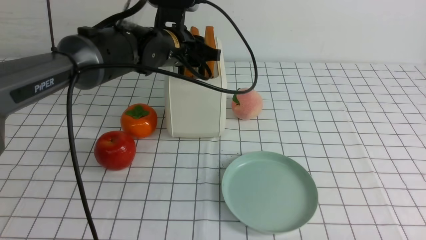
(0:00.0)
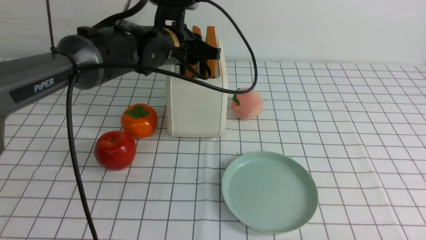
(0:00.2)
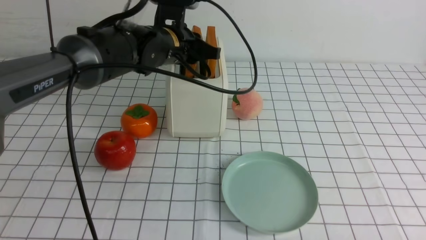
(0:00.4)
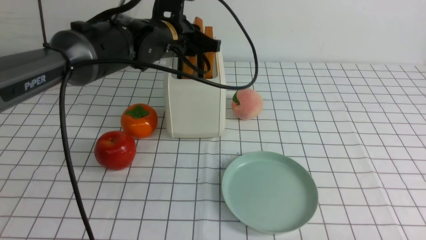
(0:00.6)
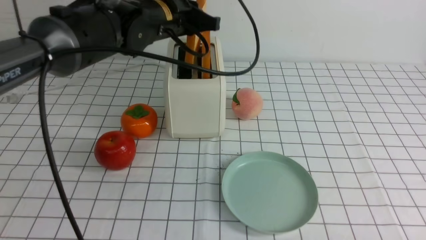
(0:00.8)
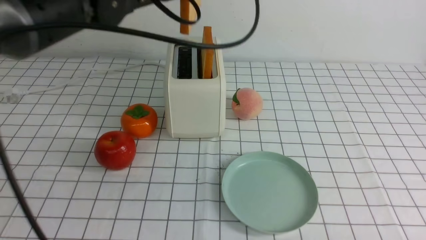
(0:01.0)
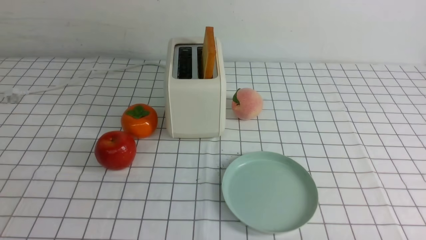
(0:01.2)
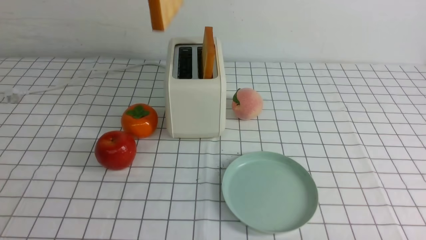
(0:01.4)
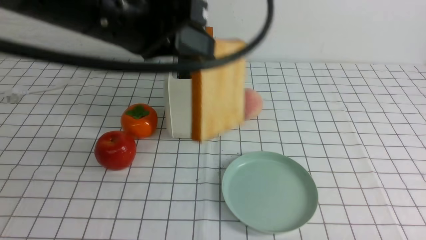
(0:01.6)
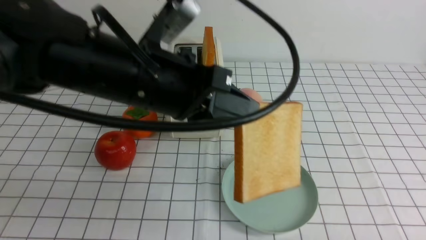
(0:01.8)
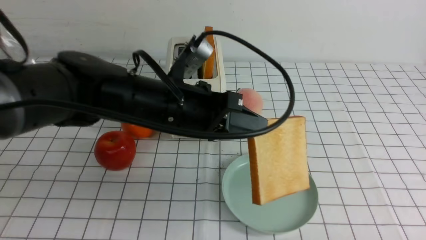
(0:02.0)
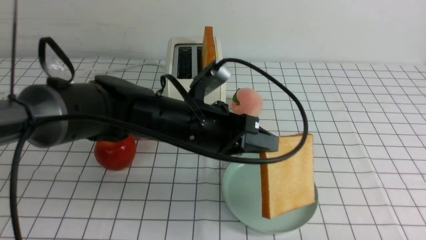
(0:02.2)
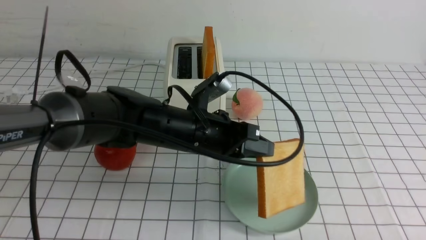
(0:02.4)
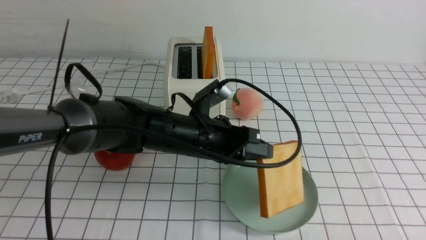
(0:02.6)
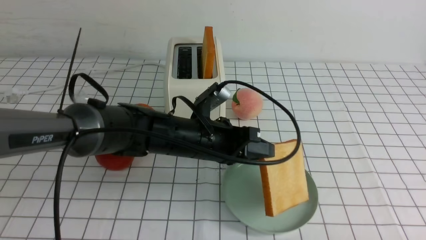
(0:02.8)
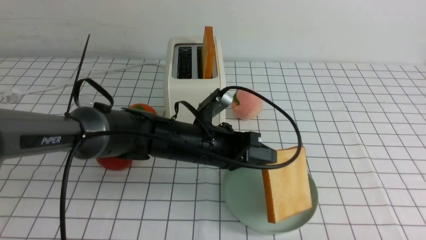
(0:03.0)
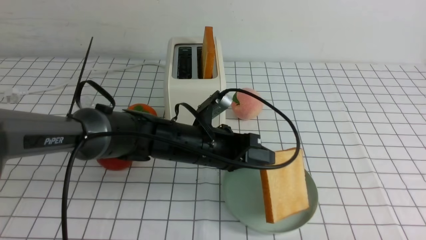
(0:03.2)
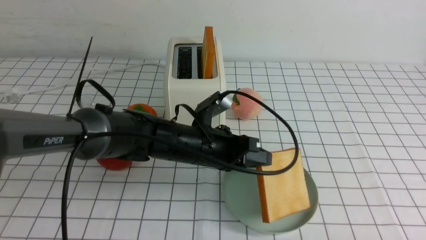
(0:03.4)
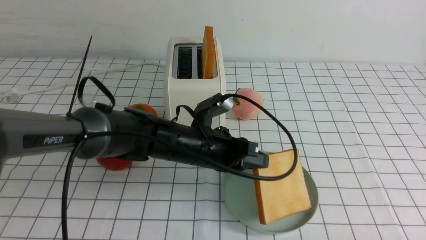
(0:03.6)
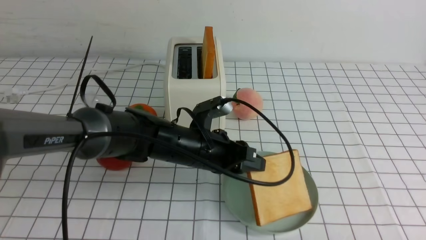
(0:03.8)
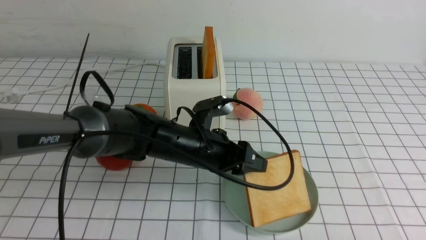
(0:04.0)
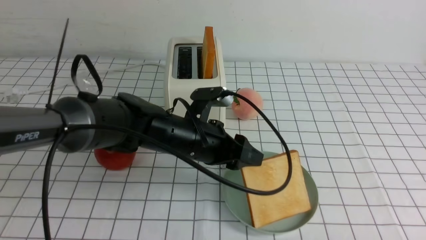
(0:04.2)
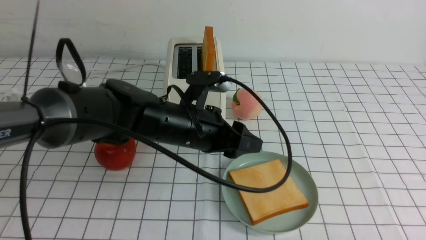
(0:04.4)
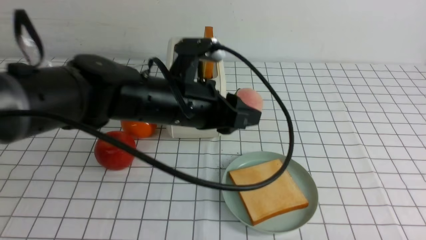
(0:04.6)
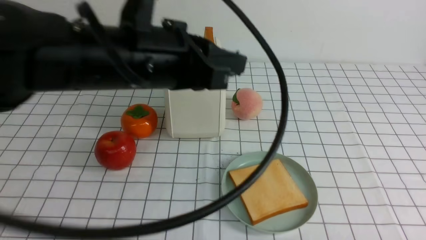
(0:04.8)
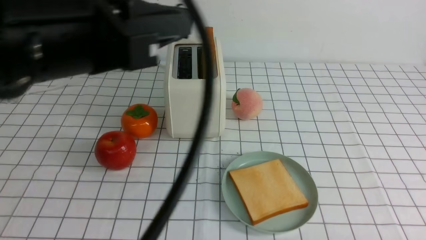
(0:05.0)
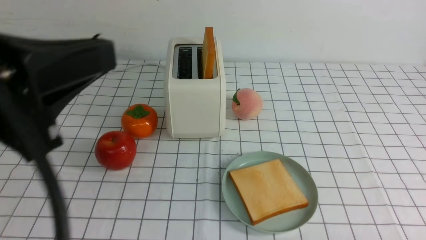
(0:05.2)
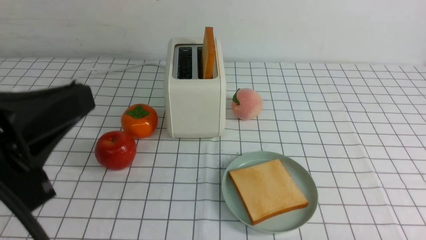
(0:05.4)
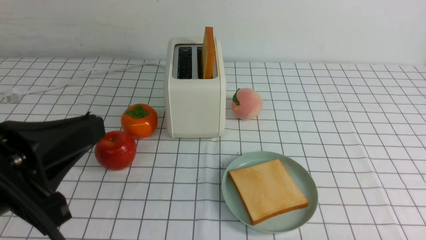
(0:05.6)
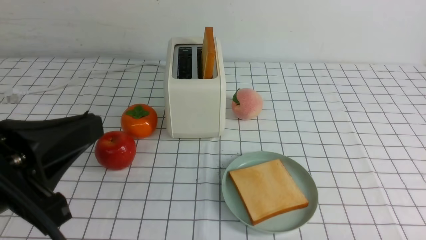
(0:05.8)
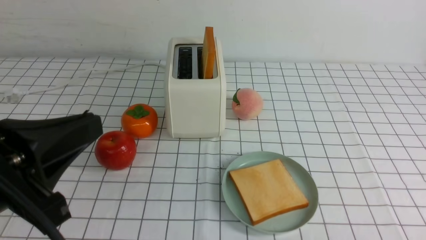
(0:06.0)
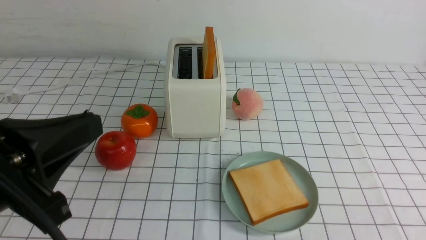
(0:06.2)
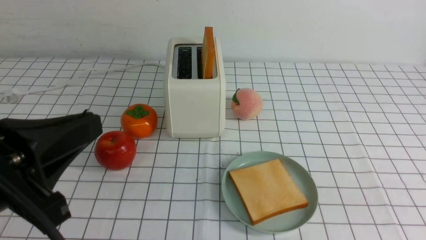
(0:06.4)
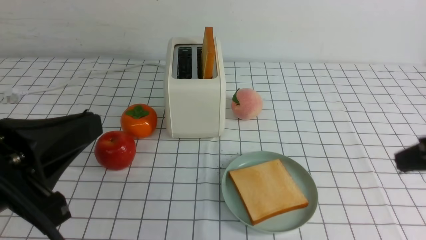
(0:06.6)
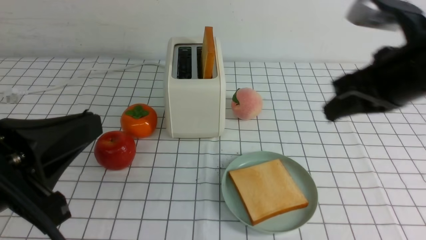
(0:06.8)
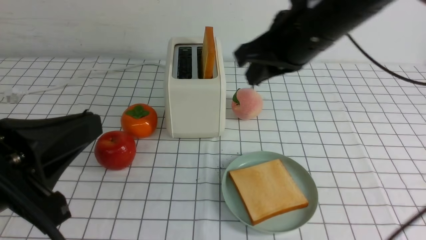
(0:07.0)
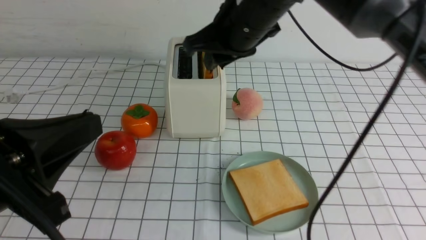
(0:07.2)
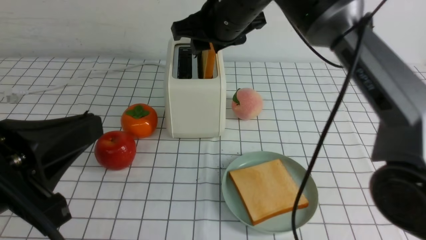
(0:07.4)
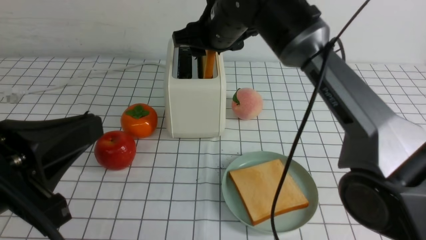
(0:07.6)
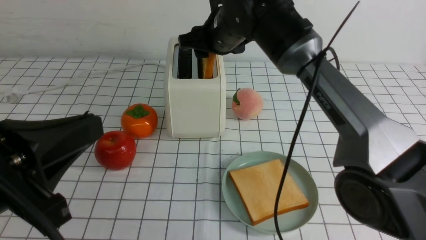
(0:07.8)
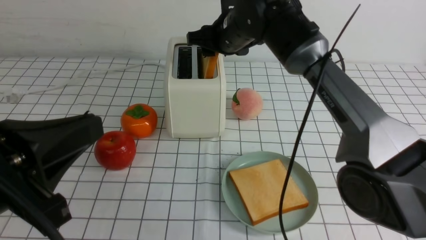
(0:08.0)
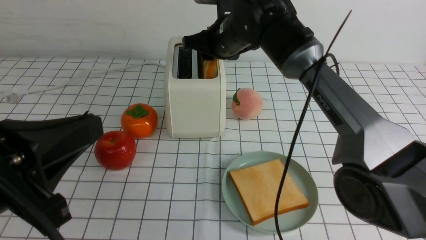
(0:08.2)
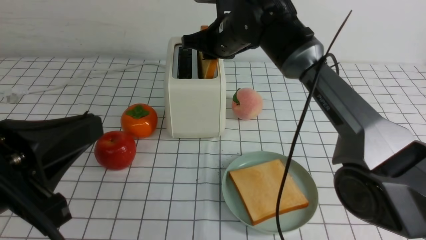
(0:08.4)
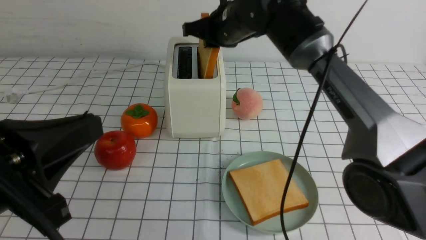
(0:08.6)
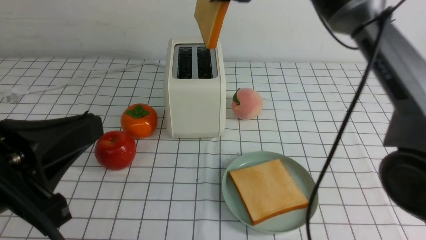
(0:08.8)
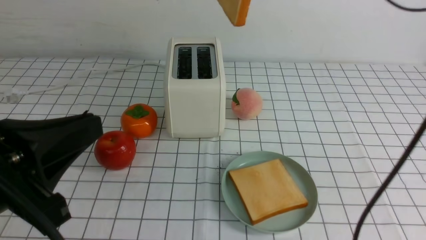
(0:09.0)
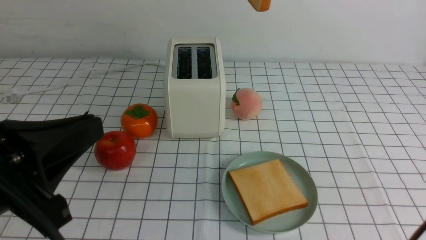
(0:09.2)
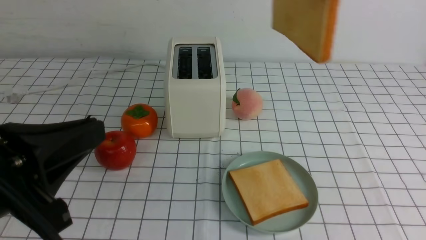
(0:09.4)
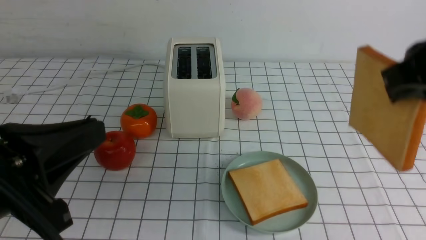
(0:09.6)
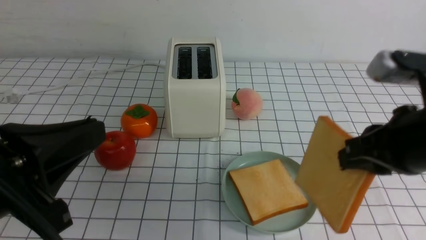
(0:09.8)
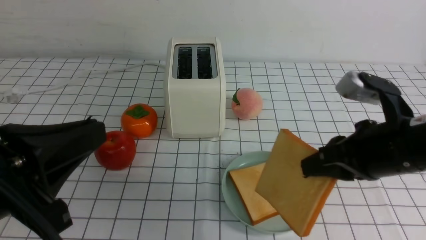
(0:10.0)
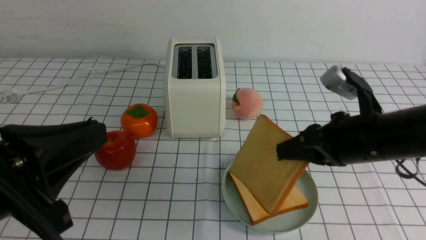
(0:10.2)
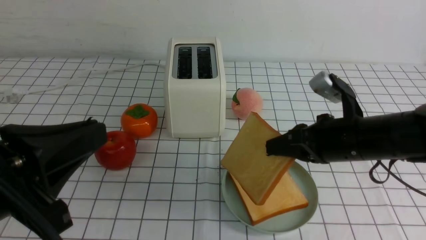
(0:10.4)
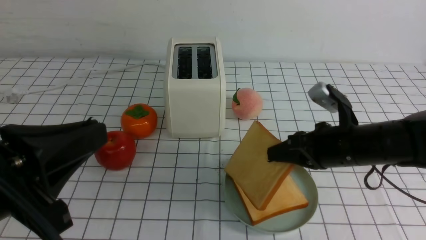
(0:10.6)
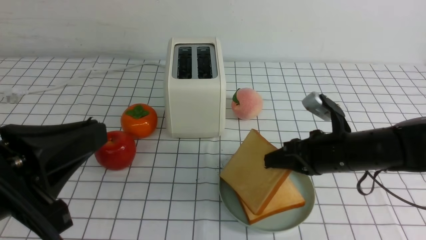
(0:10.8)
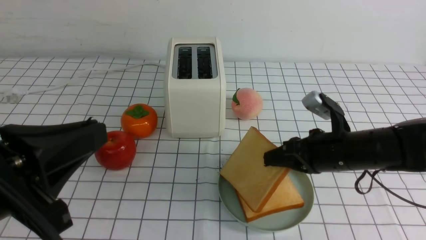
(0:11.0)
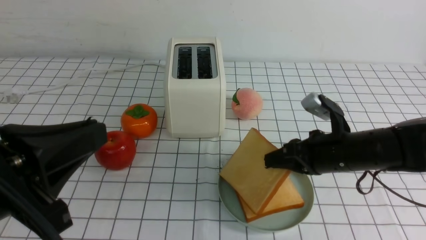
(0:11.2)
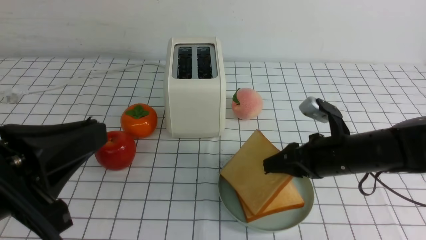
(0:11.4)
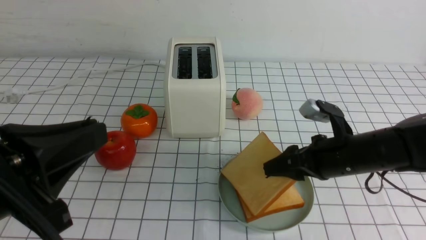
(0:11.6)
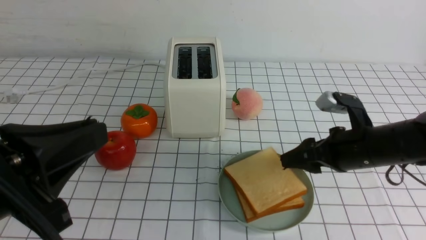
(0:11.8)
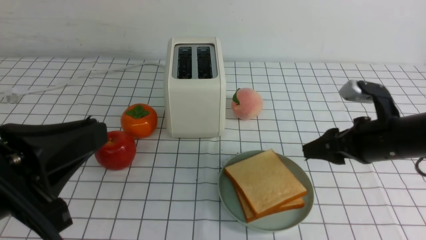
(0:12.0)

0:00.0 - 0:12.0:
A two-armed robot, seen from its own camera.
Task of the whole recording: take toasted bread from bread machine on white checkered table place on plate.
Step, 0:01.0 - 0:04.4: use the left arm to put a slice of bread into the empty plate.
Step, 0:04.6 - 0:08.6: use the right arm to take out a slice of bread.
Step, 0:08.8 - 0:12.0: use the right arm to put a slice of bread into the plate.
0:00.0 - 0:01.6: The left gripper moves backward and upward, some 20 cm, and closes its fingers.
0:01.6 - 0:03.0: The left gripper travels downward by about 25 cm.
0:03.0 - 0:04.4: The left gripper opens up.
0:04.4 - 0:06.0: The left gripper travels backward, to the left and upward by roughly 30 cm, and closes its fingers.
0:06.0 - 0:07.6: The right gripper shifts approximately 50 cm forward, to the left and upward, and closes and opens again.
0:07.6 - 0:09.0: The right gripper travels upward and to the right by about 10 cm, and closes up.
0:09.0 - 0:10.4: The right gripper shifts about 25 cm downward, to the right and backward.
0:10.4 - 0:12.0: The right gripper ends up some 5 cm from where it was, and opens.

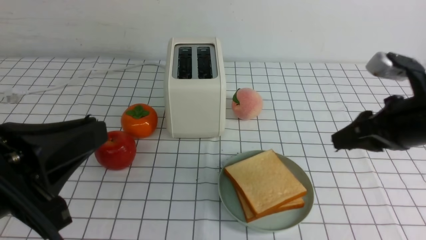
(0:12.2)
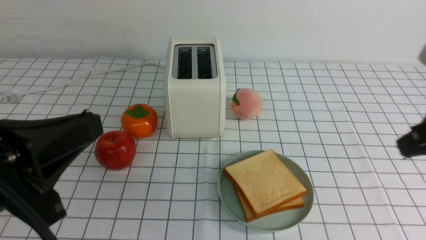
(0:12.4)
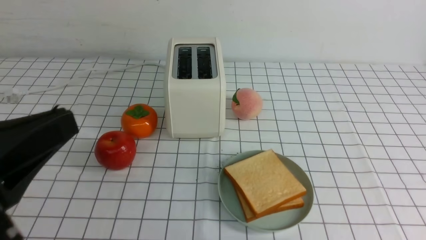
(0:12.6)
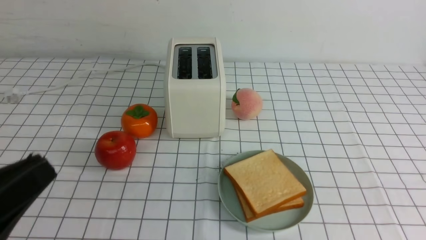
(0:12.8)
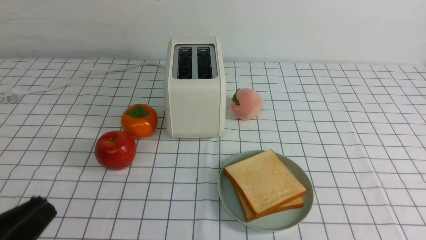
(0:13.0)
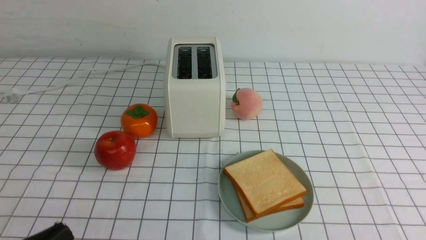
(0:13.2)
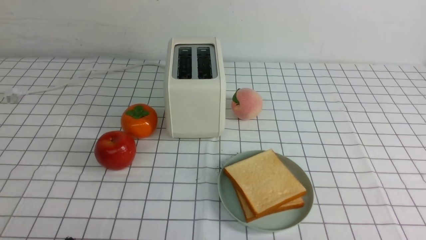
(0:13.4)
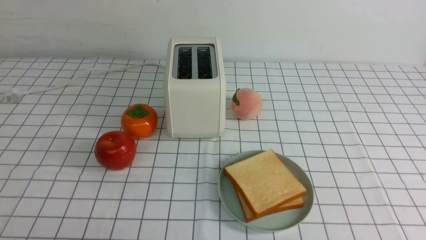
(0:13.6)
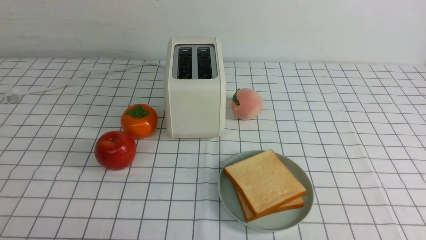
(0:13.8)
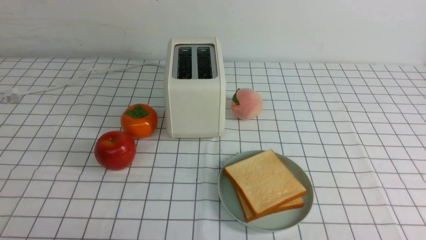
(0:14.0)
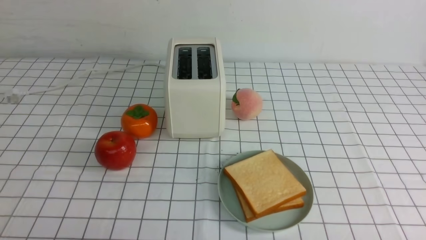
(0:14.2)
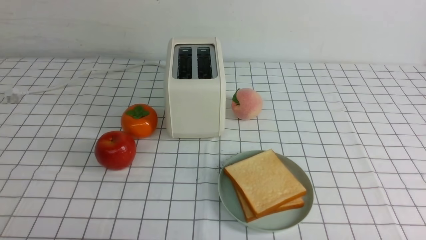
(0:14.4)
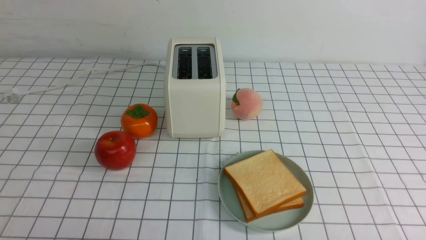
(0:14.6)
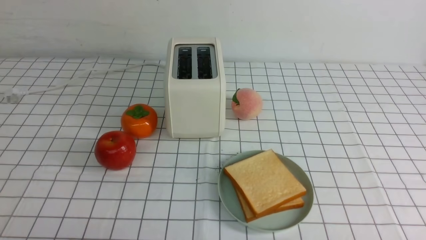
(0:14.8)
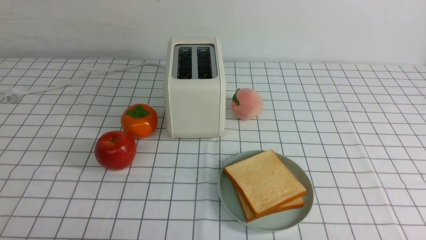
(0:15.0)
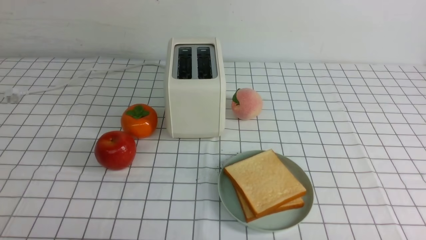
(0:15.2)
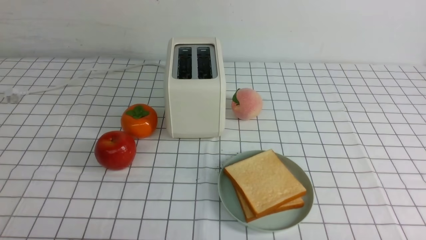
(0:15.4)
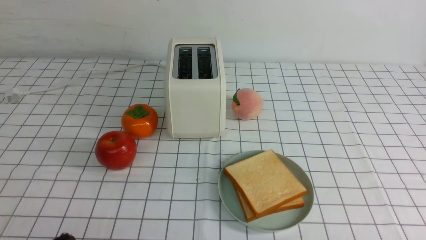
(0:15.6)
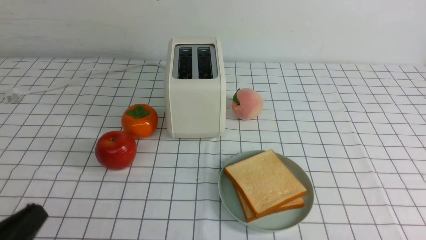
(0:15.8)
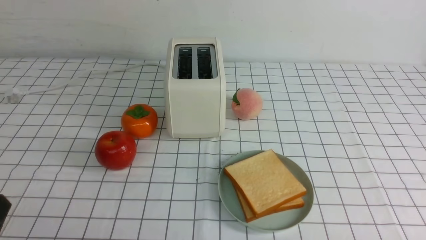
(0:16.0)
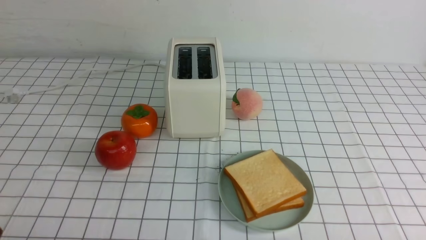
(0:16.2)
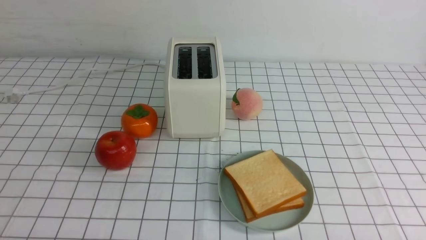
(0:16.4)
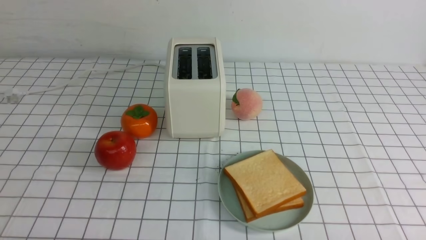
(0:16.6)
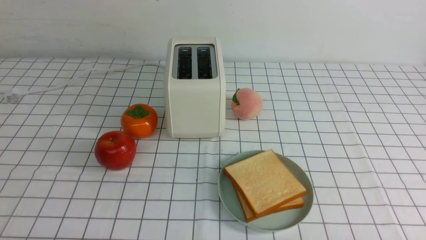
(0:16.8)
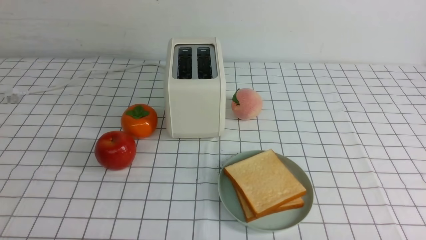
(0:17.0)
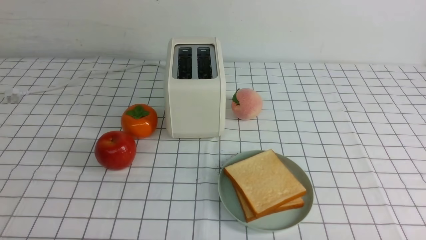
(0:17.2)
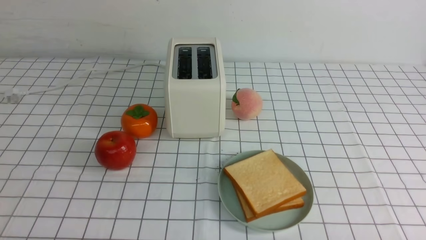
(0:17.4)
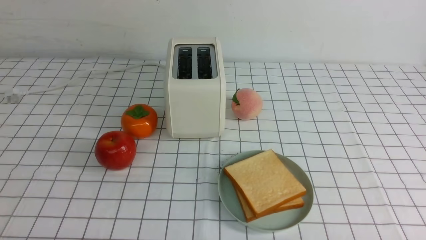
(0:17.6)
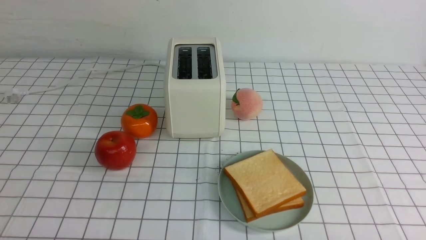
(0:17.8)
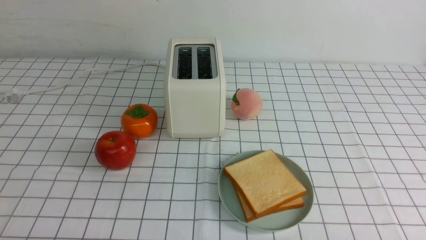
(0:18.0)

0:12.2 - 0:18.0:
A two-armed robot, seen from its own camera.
Task of the whole recording: take toasted bread from bread machine on white checkered table place on plate.
0:12.2 - 0:13.6: The left gripper travels downward and backward by some 15 cm. The right gripper moves backward, about 25 cm, and closes up.
0:16.6 - 0:18.0: Both grippers stay about where they are.
